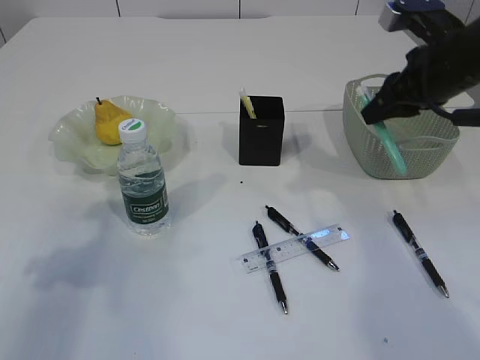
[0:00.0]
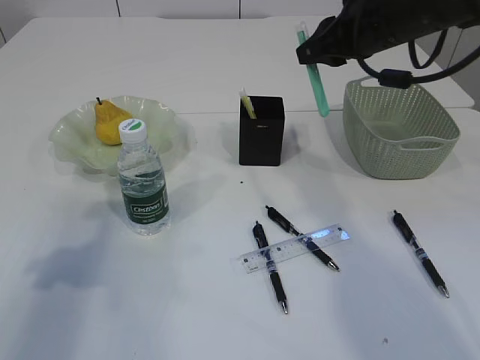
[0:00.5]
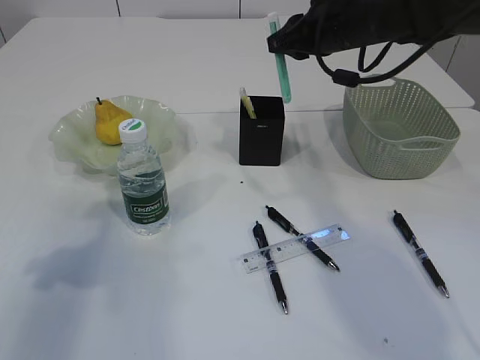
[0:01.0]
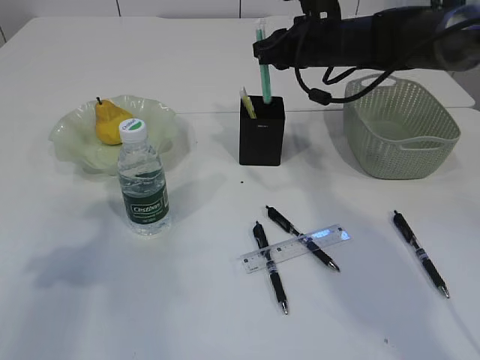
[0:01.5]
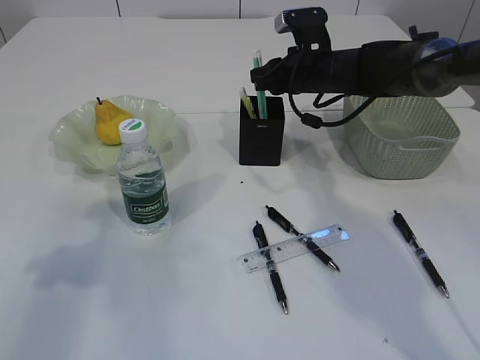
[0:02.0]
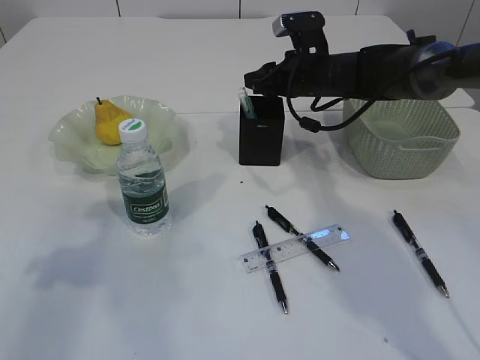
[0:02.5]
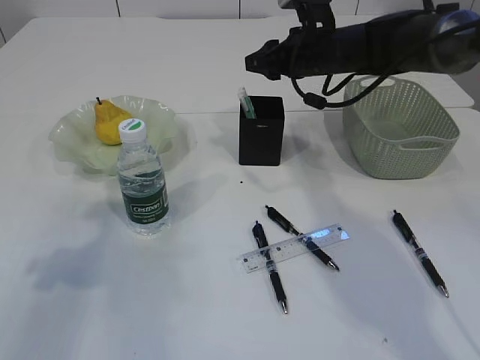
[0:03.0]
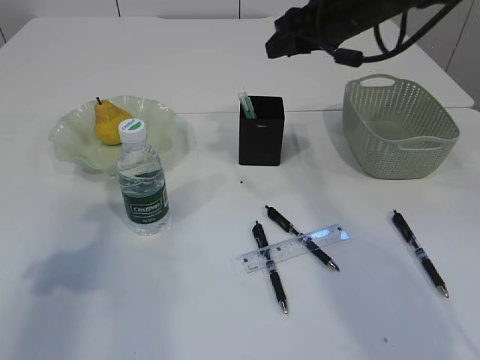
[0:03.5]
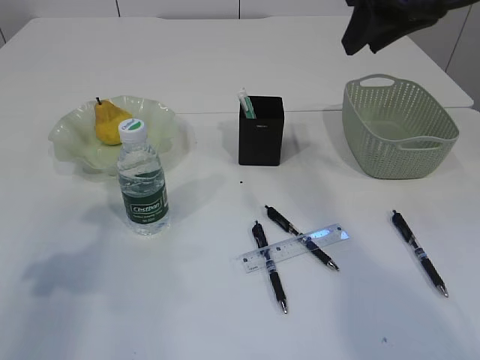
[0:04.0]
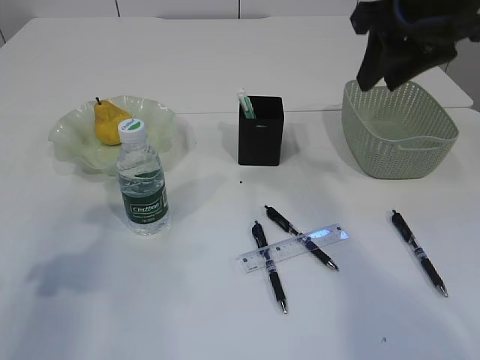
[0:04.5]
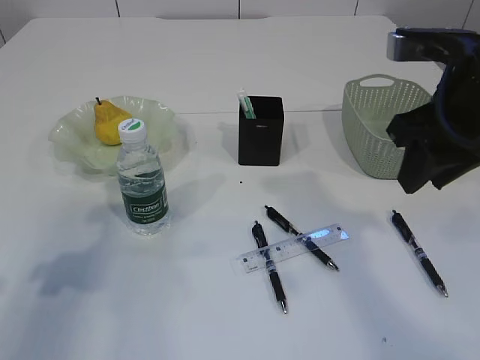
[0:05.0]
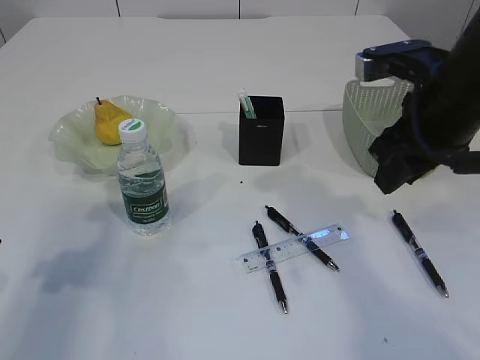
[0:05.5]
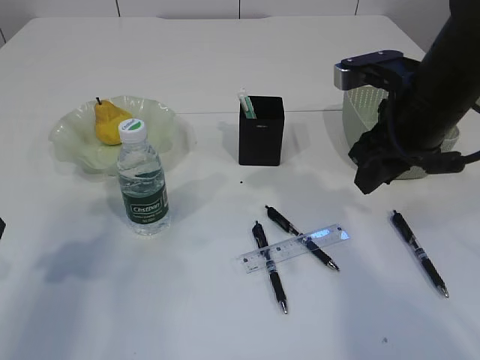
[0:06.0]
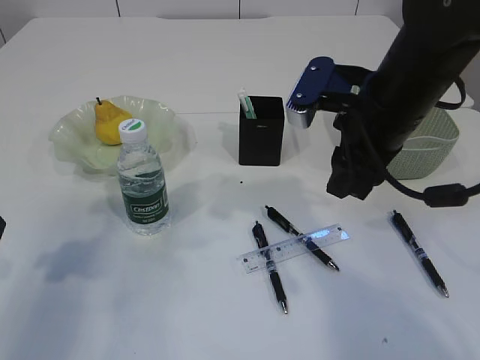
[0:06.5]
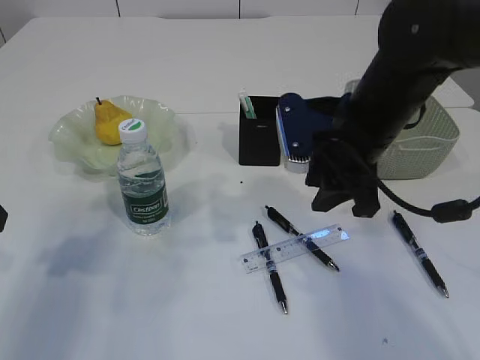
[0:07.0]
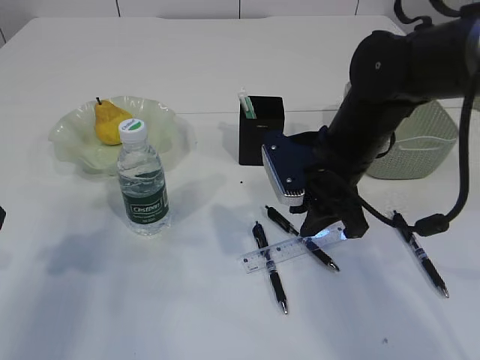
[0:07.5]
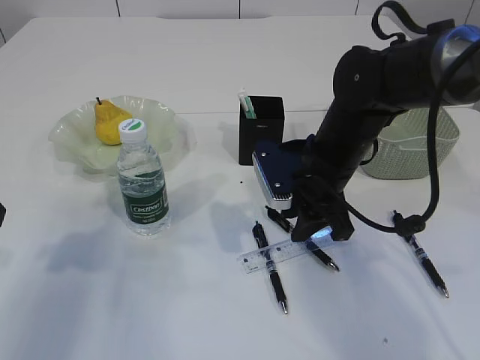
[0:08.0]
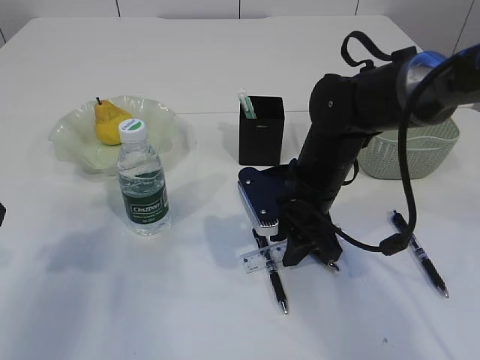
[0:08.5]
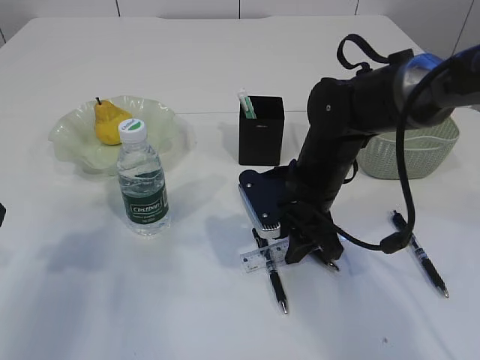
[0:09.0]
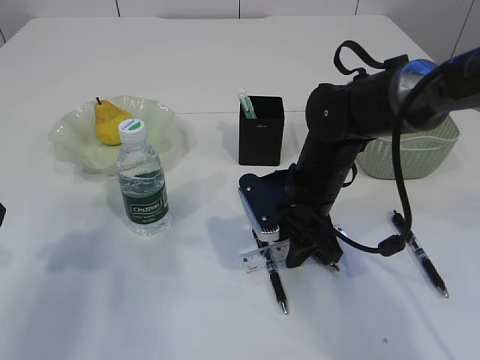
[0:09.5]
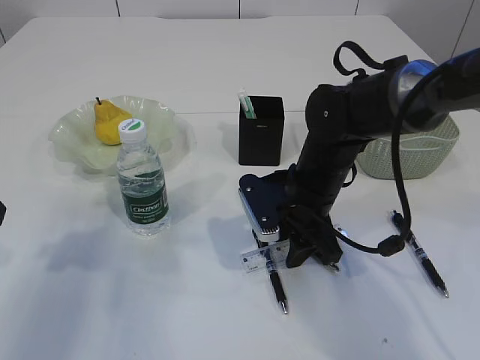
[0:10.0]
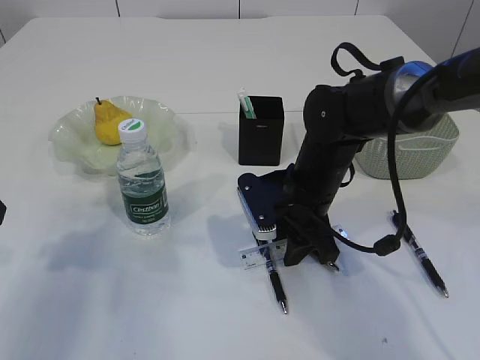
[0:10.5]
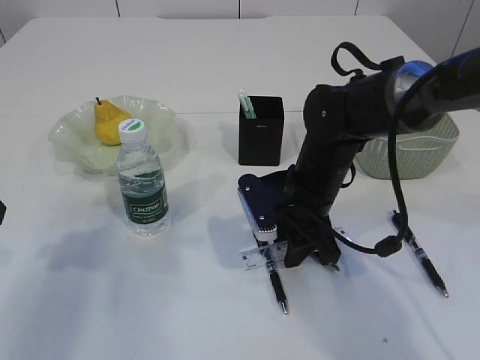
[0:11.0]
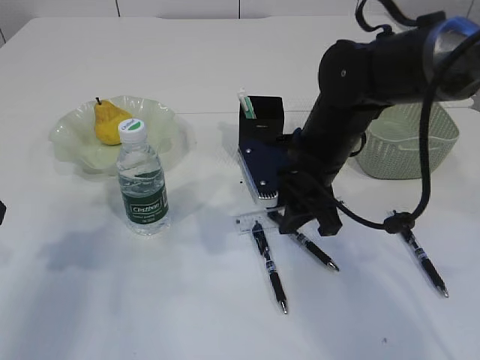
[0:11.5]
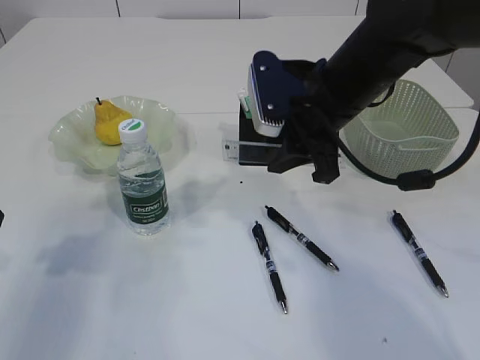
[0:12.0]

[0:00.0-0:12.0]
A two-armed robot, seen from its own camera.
Step, 0:00.0 to 0:02.5: Place the blue knife into the pen holder.
Step, 0:03.0 to 0:11.0: pick up the ruler.
0:00.0 to 0:02.0: The right gripper moves forward, to the left and downward, about 20 cm.
0:02.0 to 0:04.0: The right gripper moves upward and backward, some 25 cm.
0:04.0 to 0:06.0: The right gripper goes some 10 cm downward.
0:06.0 to 0:08.0: The right gripper travels downward and to the left by roughly 10 cm.
0:08.0 to 0:10.0: The grippers stay close to where they were, moving slightly.
0:10.0 to 0:12.0: The right gripper shifts roughly 15 cm upward.

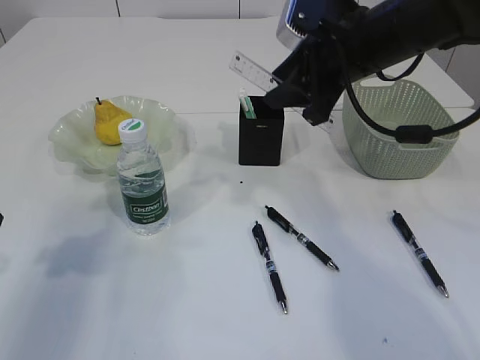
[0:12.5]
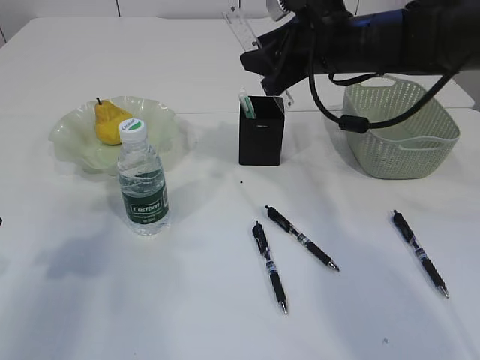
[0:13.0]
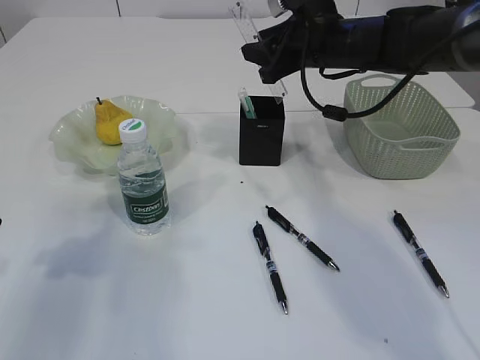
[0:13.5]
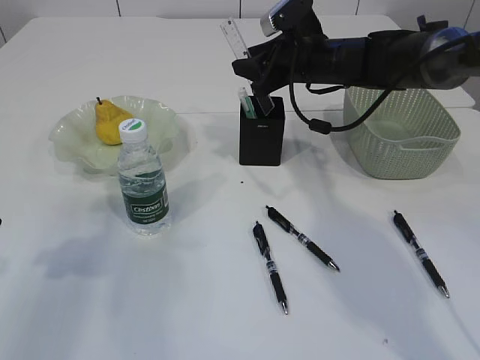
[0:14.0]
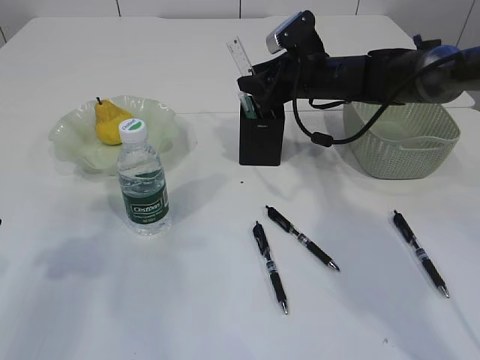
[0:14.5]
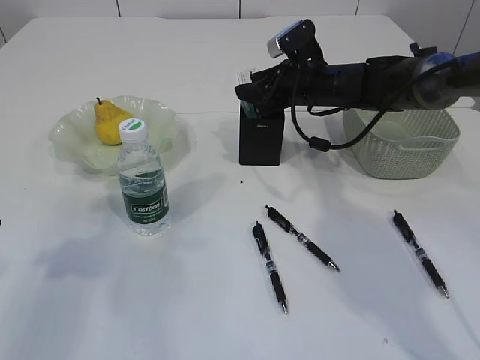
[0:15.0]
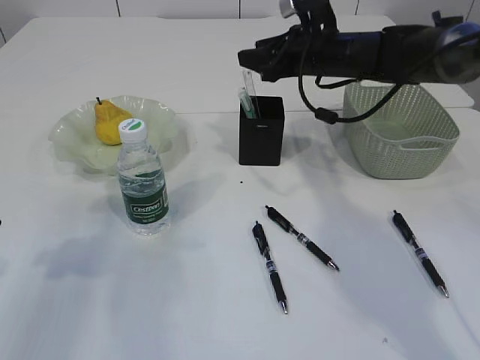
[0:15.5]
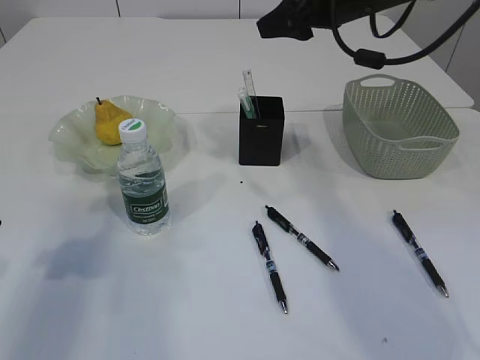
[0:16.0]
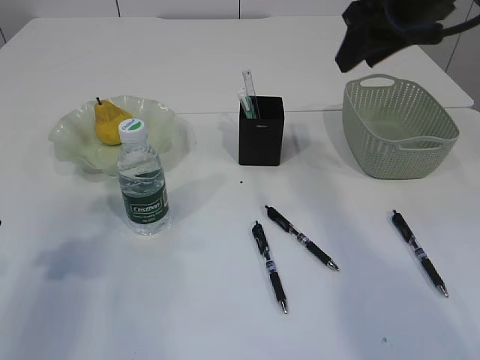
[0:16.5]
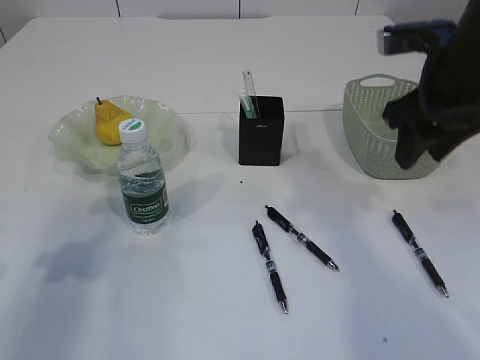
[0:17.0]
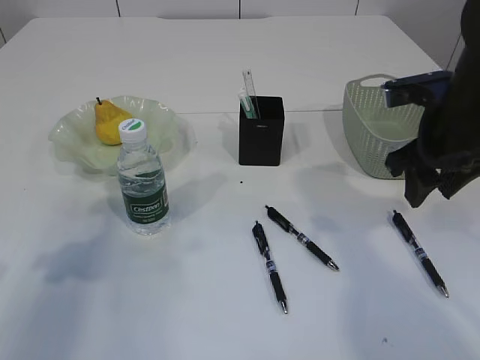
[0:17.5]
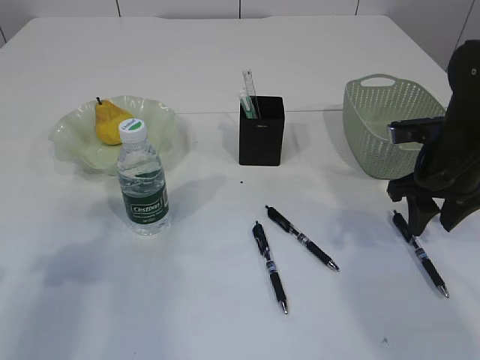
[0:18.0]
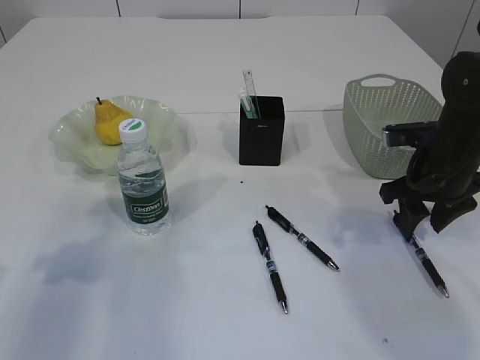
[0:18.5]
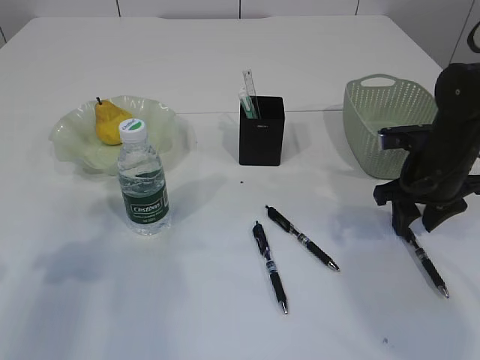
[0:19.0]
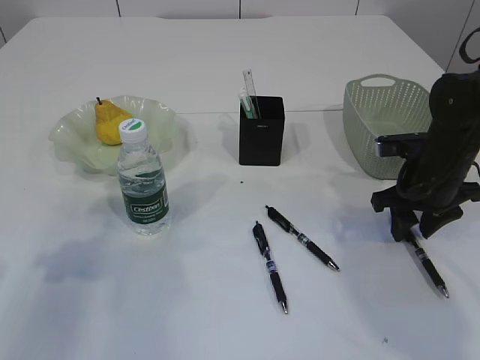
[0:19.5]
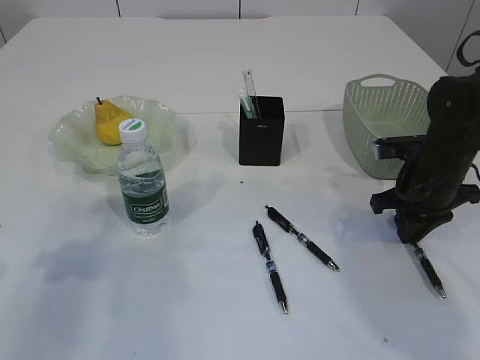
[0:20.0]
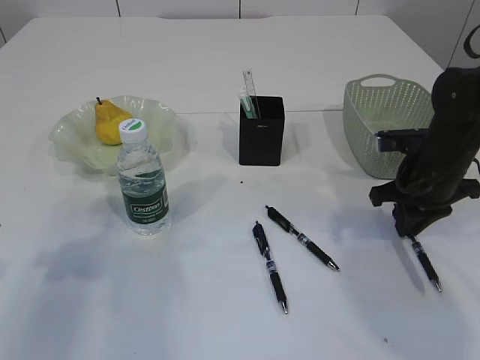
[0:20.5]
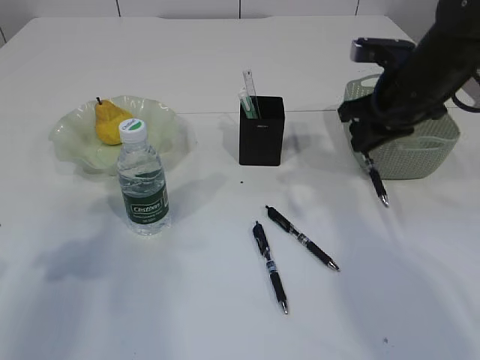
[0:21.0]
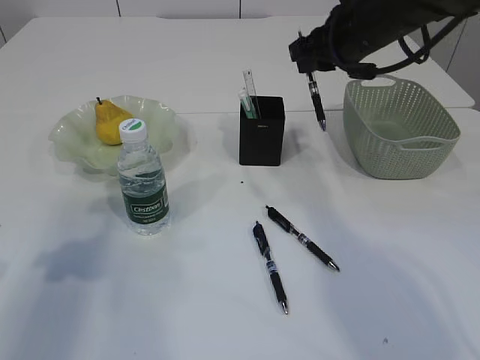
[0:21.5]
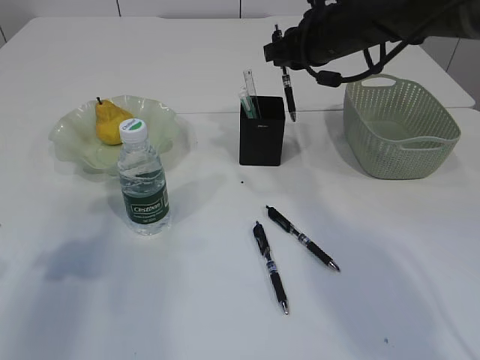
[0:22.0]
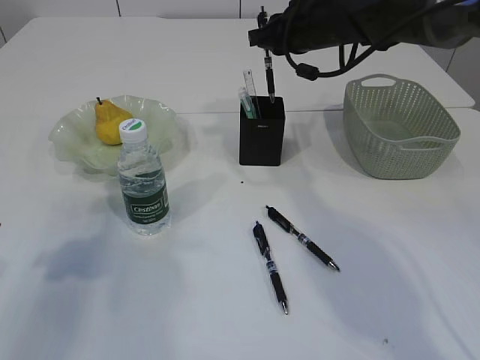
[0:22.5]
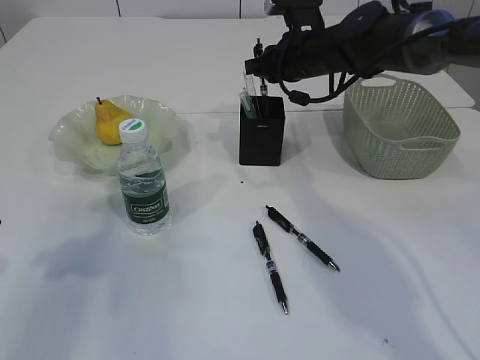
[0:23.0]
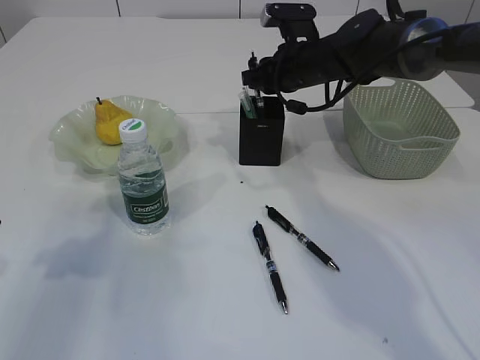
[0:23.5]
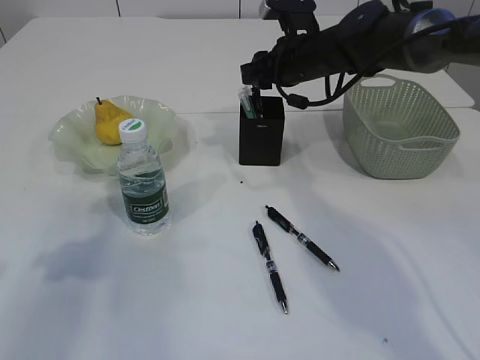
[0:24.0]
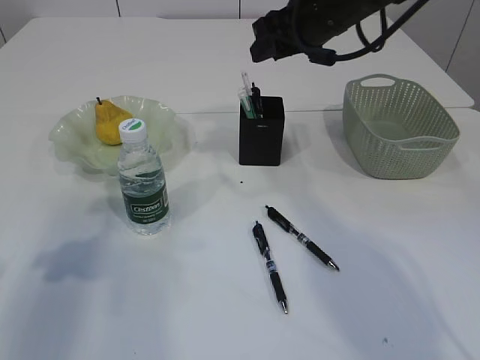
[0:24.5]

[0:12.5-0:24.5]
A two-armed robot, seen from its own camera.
Step, 0:12.5 to 0:15.0: Place the ruler into the pen holder.
Step, 0:15.5 to 0:20.5: Pick up the pen with right arm.
Step, 0:21.0 to 0:24.0: Place the pen into the pen holder.
0:12.5 to 0:14.5: The right gripper goes about 15 cm forward and downward.
0:14.5 to 0:16.5: The right gripper is displaced upward and backward by about 20 cm.
0:16.5 to 0:18.5: The right gripper goes approximately 20 cm downward.
0:18.5 to 0:20.5: The right gripper closes.
0:20.5 to 0:22.5: The right gripper travels forward, to the left and upward by about 20 cm.
0:22.5 to 0:24.5: The right gripper moves approximately 5 cm, and opens up.

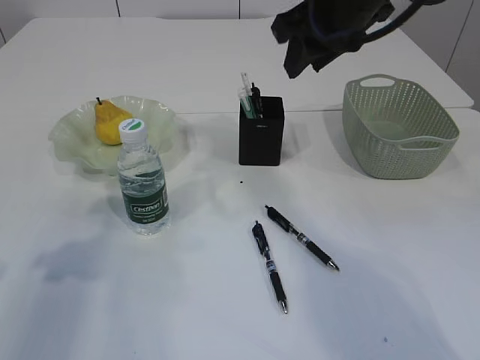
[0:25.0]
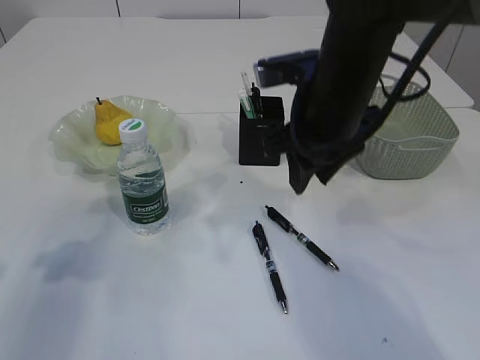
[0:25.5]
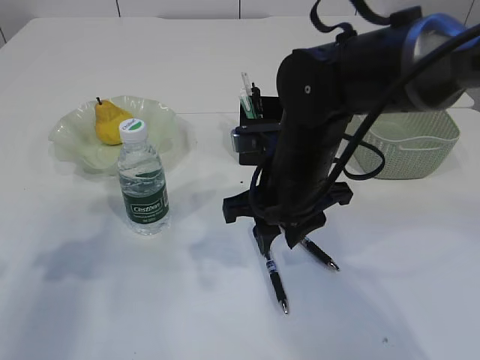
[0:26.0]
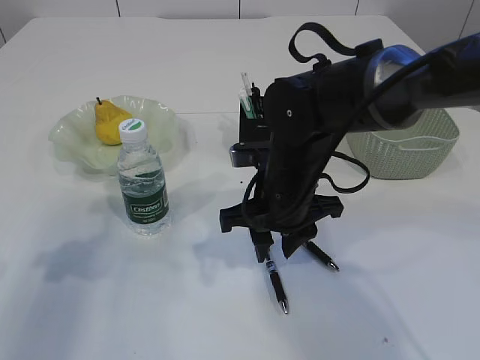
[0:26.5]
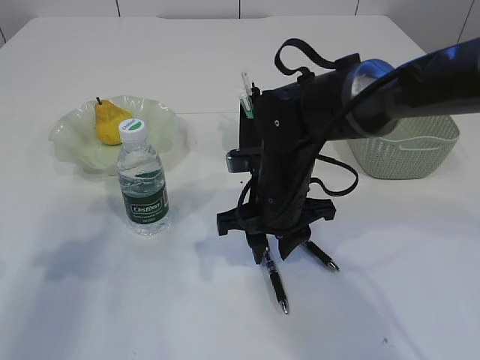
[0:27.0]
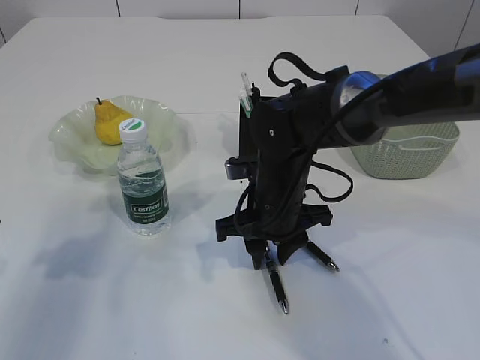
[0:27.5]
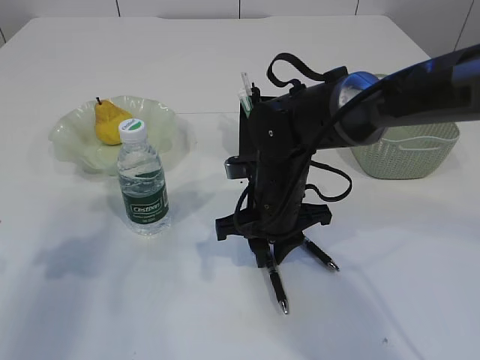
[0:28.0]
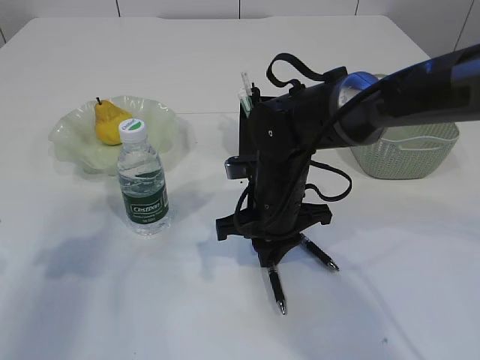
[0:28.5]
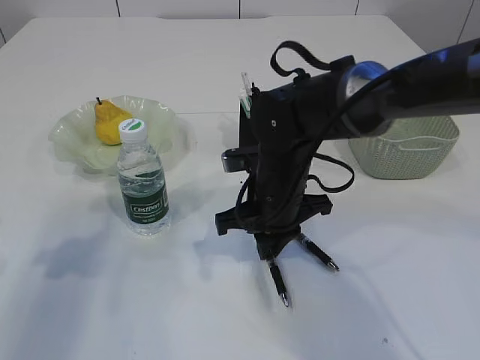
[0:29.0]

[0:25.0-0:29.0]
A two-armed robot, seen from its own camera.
Step, 0:25.0 to 0:29.0: Pick up the pen with right arm.
0:25.0 to 0:27.0: The right gripper moves downward, approximately 20 cm.
0:27.0 to 0:29.0: The right gripper closes up.
